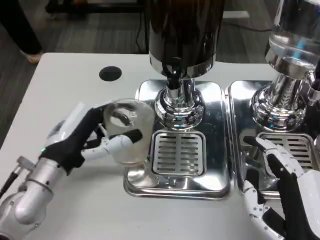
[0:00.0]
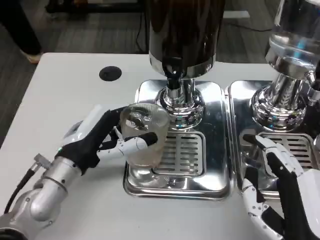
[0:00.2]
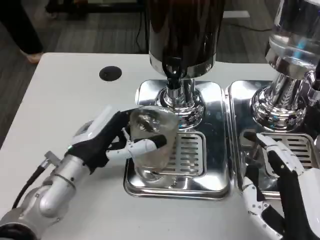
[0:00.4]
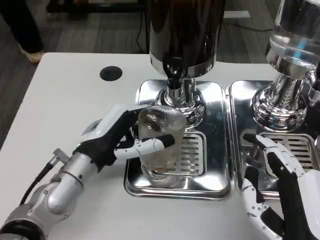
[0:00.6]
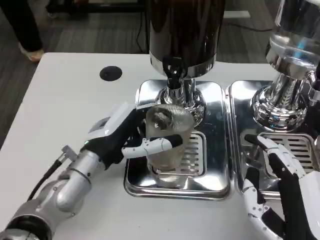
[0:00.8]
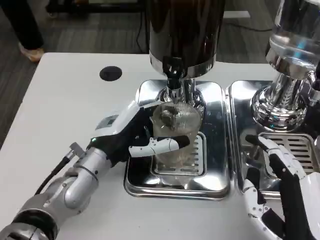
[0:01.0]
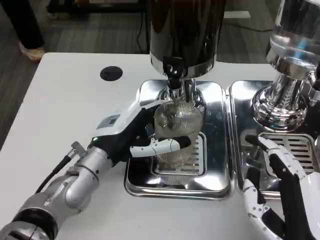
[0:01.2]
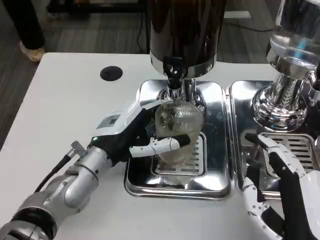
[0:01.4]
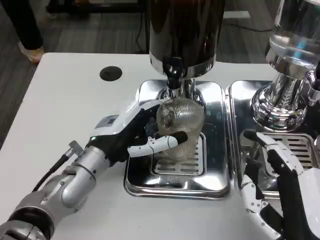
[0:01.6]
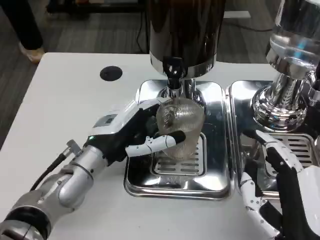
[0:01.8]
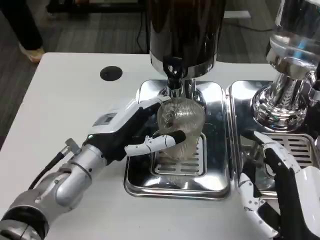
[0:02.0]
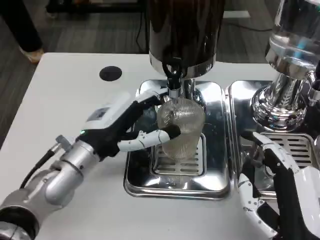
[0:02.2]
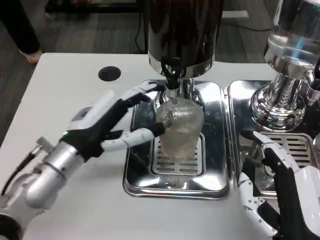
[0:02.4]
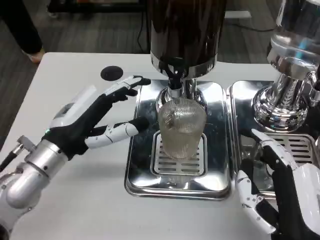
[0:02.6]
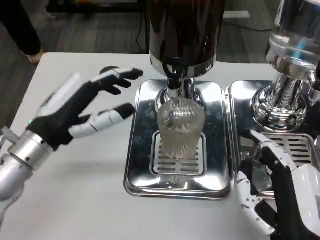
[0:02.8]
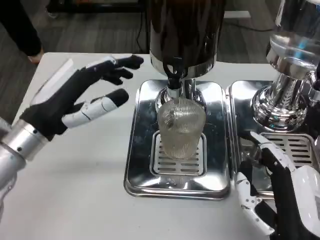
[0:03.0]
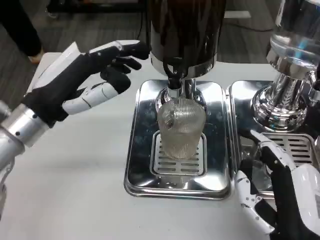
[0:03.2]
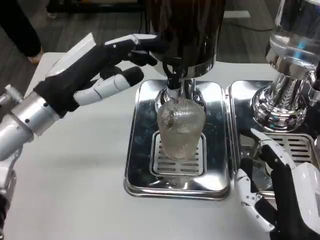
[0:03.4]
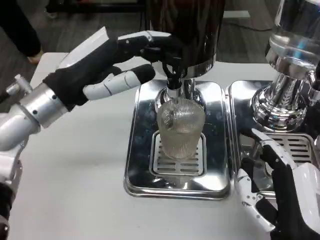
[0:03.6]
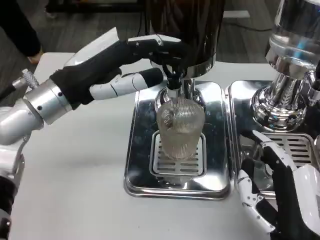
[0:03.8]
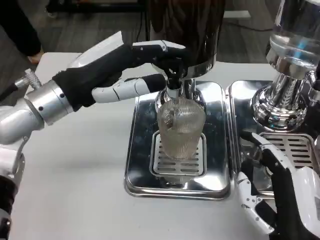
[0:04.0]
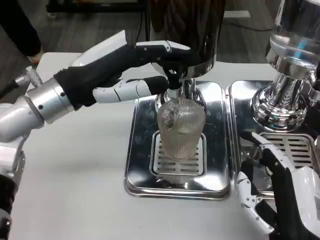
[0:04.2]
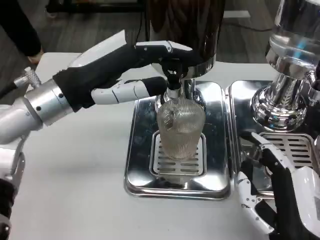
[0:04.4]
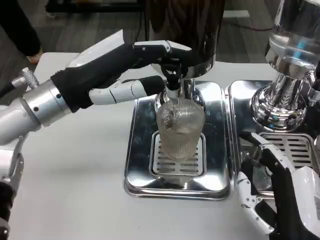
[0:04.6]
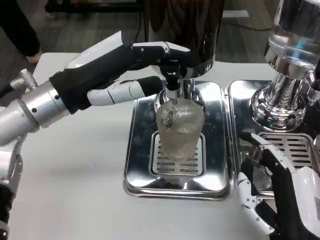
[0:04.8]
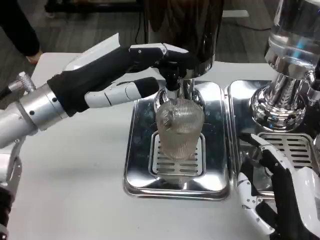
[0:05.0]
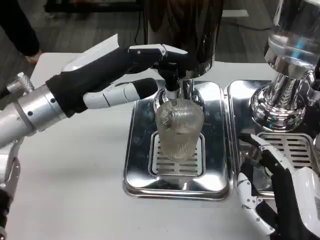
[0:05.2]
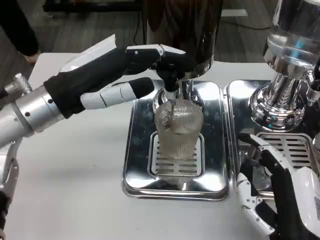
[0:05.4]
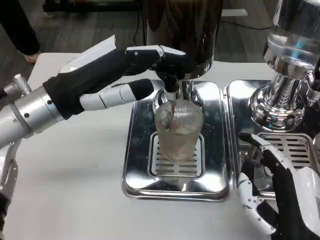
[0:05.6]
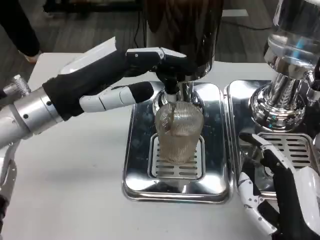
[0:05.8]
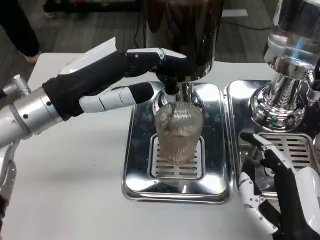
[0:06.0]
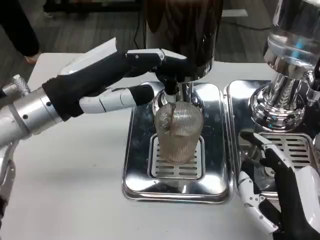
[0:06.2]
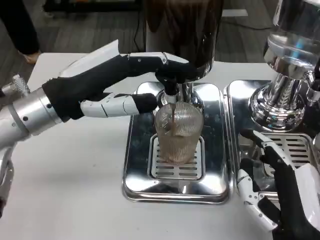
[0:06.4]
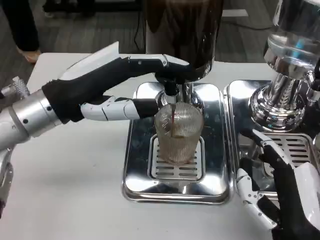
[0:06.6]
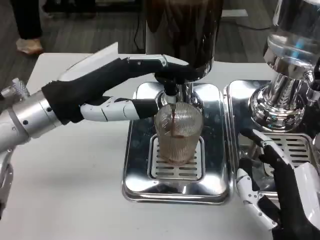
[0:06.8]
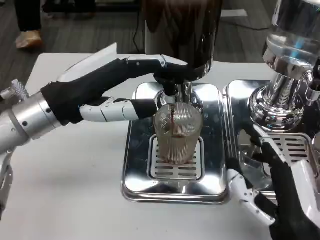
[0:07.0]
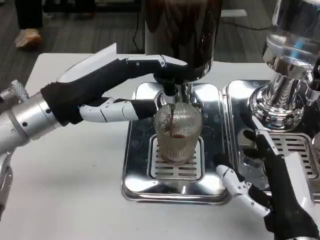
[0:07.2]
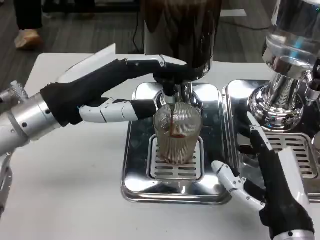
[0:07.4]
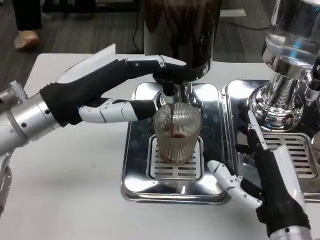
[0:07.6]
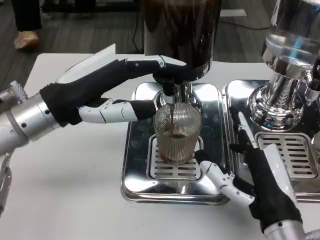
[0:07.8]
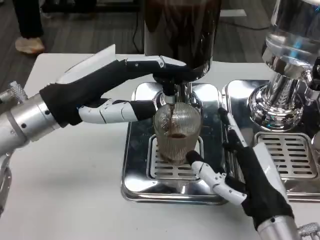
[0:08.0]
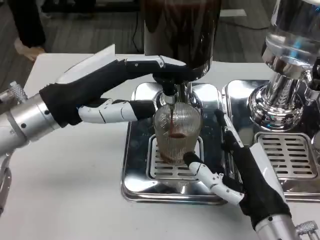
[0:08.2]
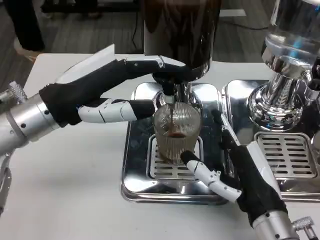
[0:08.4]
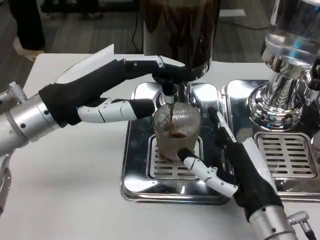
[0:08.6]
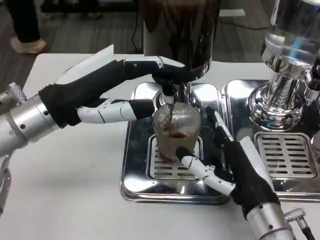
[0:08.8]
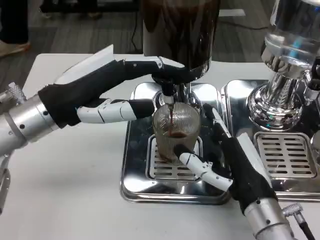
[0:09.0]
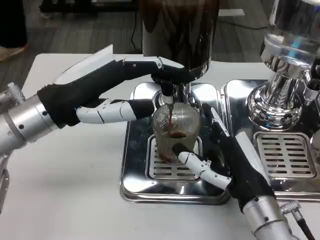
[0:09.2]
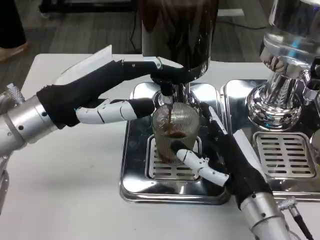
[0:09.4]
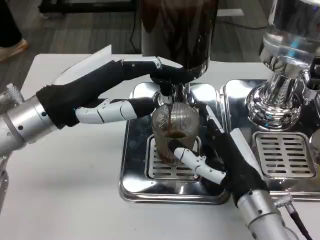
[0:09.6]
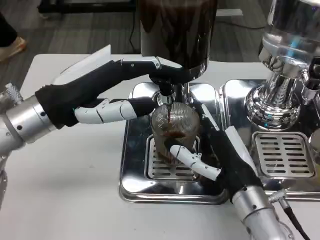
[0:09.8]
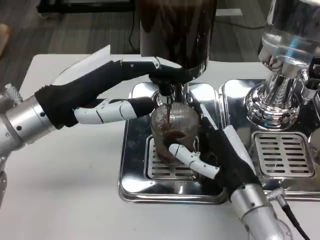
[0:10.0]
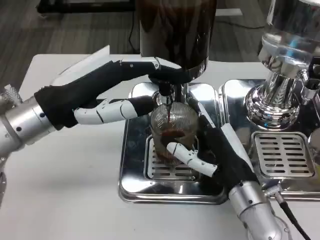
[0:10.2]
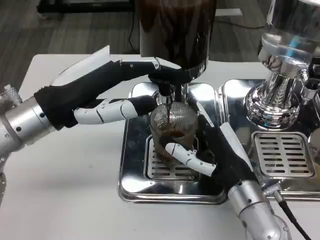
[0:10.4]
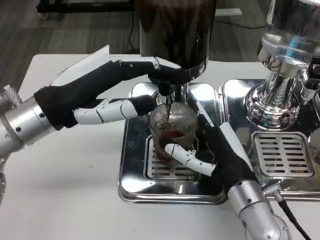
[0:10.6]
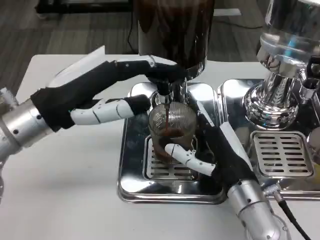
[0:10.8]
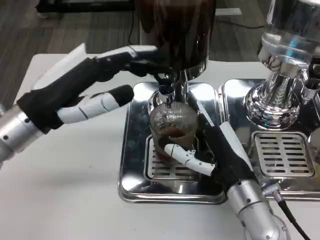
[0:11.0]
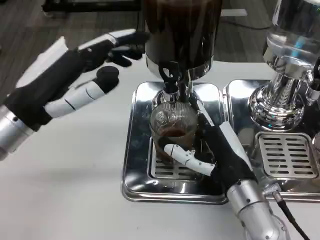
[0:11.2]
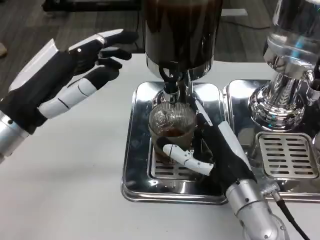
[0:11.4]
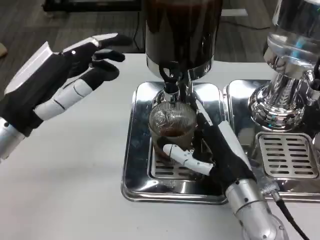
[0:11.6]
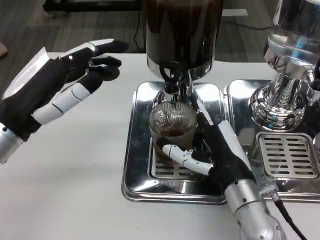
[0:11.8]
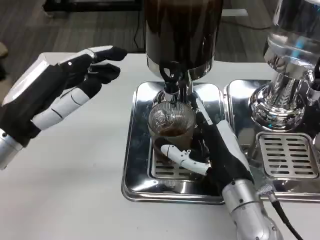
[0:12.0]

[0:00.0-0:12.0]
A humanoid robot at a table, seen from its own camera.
Task of the whole recording: Grasp the cup under the faucet to collect the drink, then remove the cup.
0:00.0 to 0:01.6: The left hand shifts some 5 cm to the right.
0:01.6 to 0:03.0: The left hand goes about 10 cm to the left and upward.
0:03.0 to 0:04.4: The left hand goes approximately 5 cm upward.
0:07.6 to 0:09.0: The hands make only small movements.
0:10.4 to 0:12.0: The left hand shifts by approximately 5 cm.

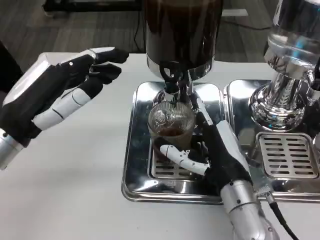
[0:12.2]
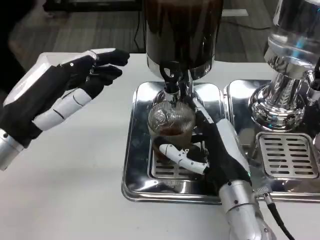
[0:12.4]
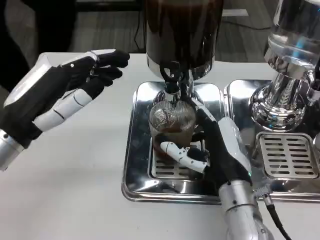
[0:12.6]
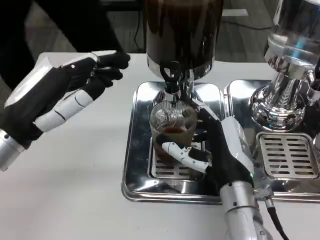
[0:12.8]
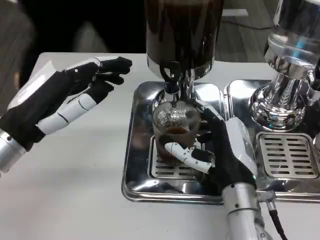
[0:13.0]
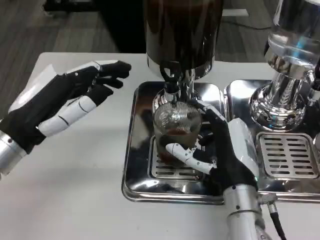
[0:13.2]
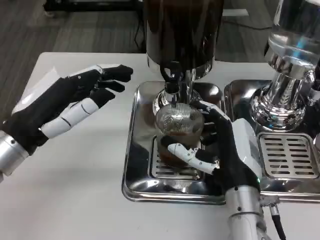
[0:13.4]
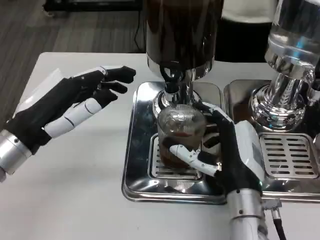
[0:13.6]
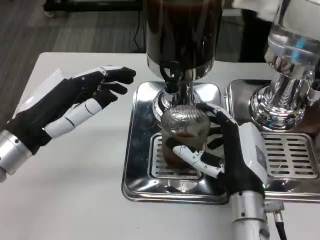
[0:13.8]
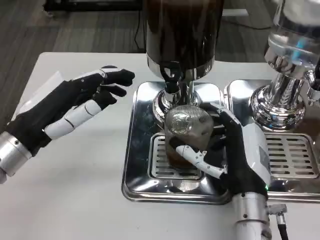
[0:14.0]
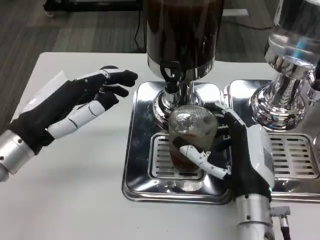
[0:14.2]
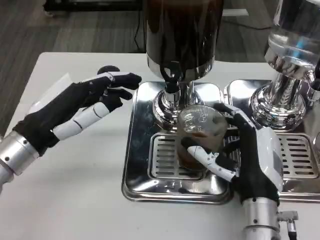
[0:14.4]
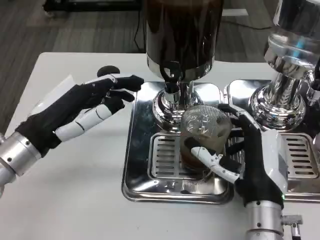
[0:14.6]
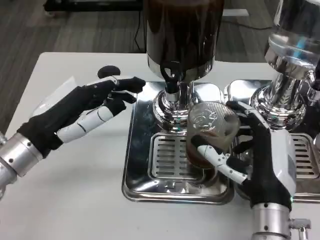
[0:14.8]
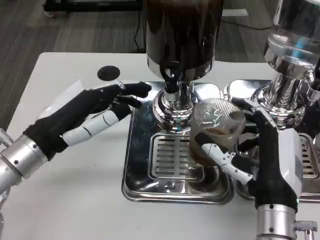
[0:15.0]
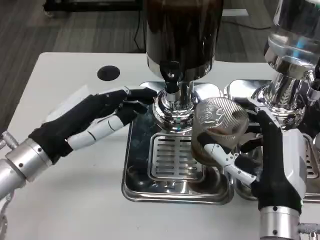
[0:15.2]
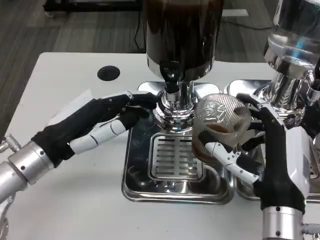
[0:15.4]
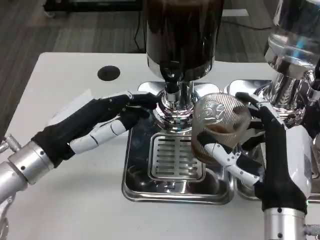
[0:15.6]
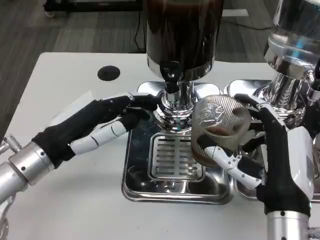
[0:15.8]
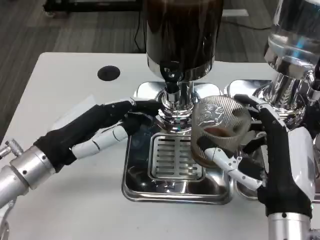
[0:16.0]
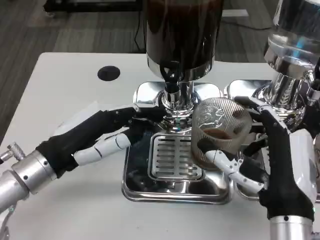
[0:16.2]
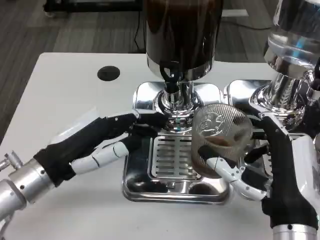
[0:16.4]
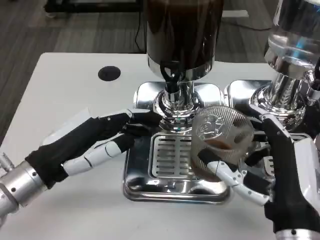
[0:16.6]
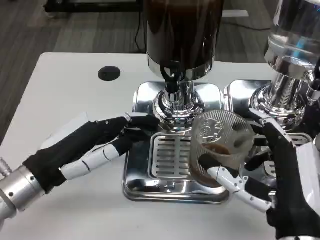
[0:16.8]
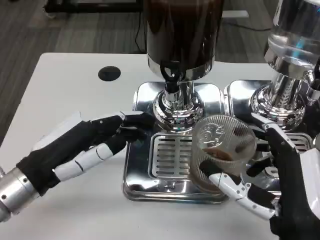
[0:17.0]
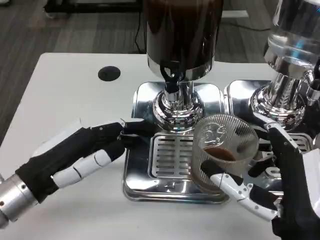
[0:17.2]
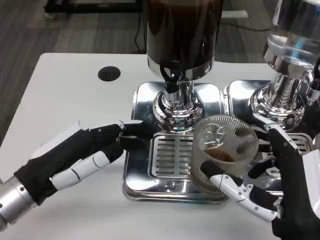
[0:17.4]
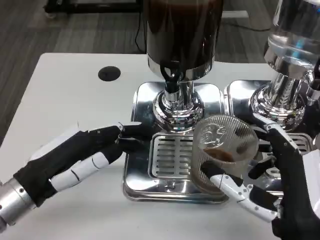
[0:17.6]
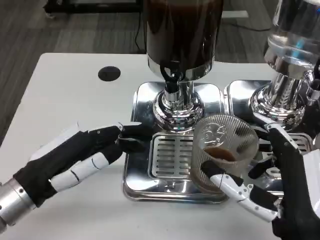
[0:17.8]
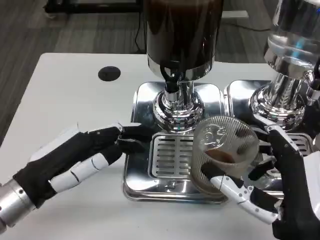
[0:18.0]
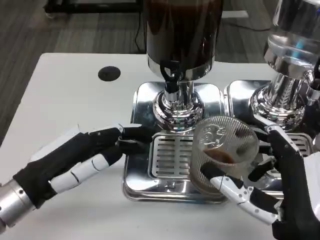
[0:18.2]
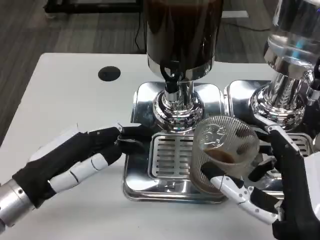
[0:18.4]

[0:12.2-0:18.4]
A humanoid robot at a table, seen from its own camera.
Task of the whole recording: Grasp the cup under the faucet to collect the drink, then remove the cup.
0:15.4 to 0:16.8: The right hand ends up roughly 5 cm from where it was.
0:16.8 to 0:18.4: The hands make only small movements.

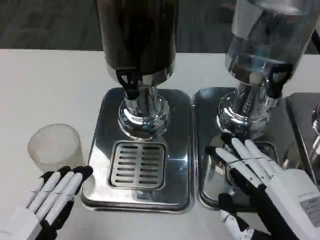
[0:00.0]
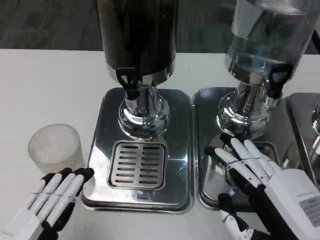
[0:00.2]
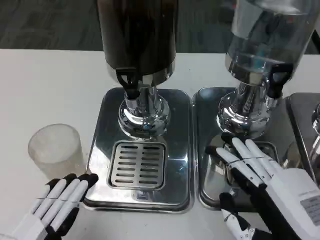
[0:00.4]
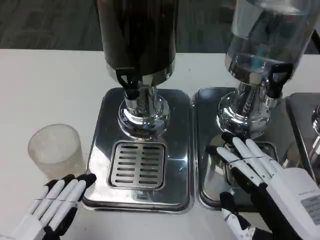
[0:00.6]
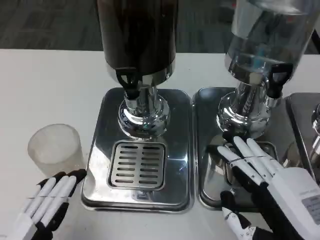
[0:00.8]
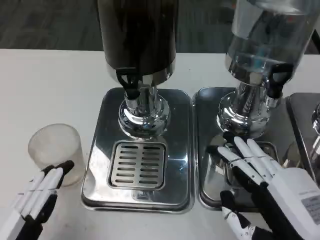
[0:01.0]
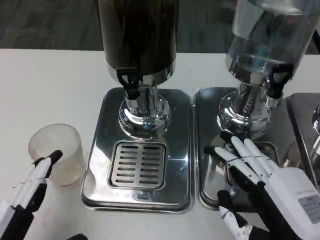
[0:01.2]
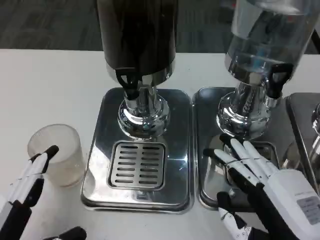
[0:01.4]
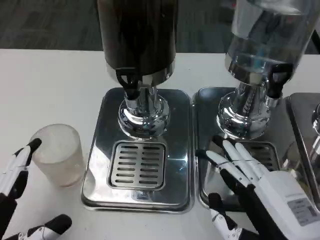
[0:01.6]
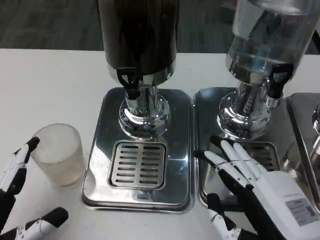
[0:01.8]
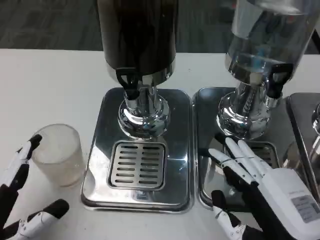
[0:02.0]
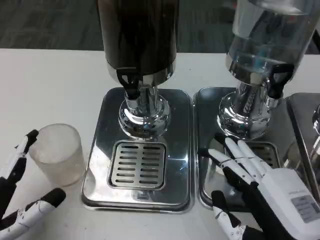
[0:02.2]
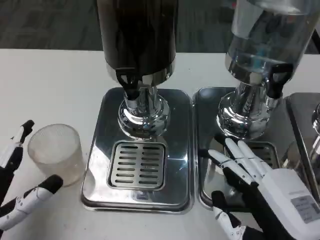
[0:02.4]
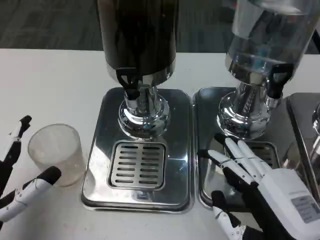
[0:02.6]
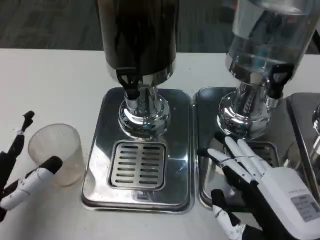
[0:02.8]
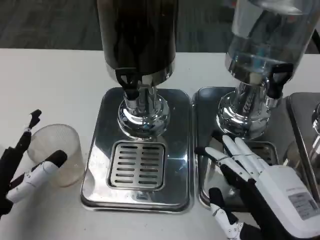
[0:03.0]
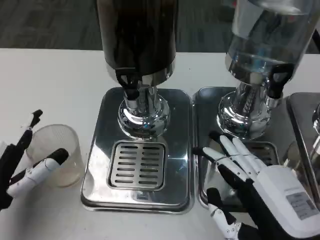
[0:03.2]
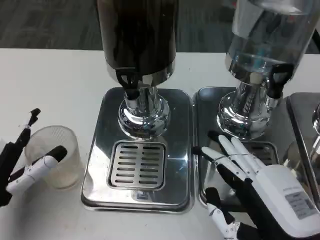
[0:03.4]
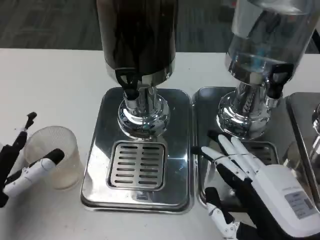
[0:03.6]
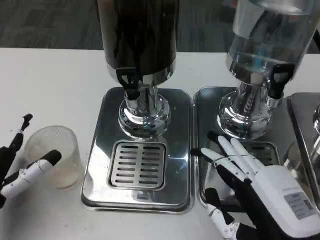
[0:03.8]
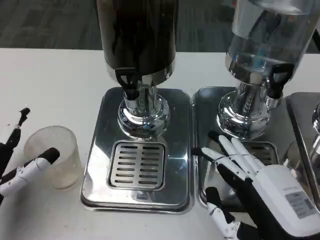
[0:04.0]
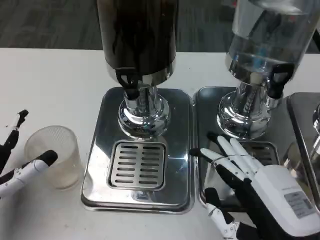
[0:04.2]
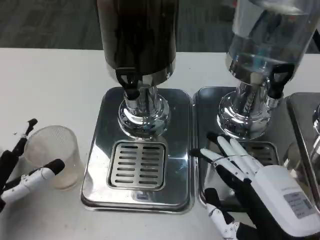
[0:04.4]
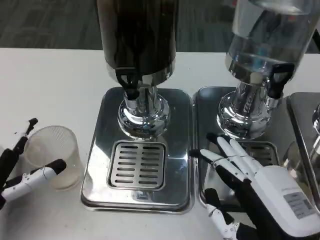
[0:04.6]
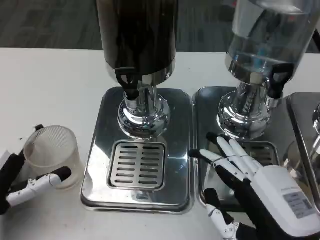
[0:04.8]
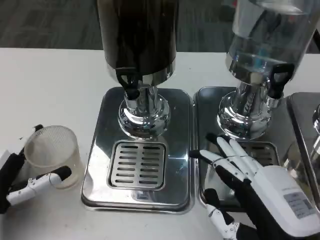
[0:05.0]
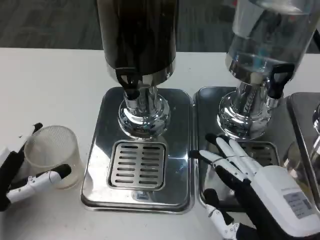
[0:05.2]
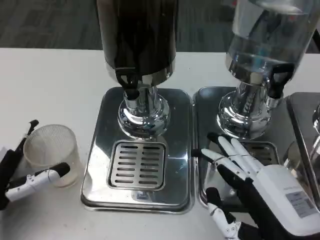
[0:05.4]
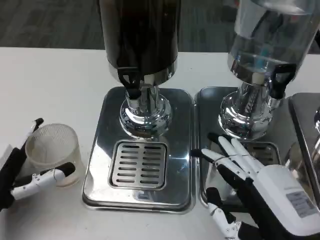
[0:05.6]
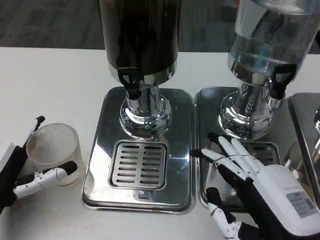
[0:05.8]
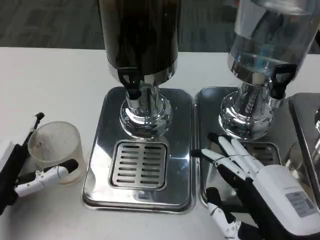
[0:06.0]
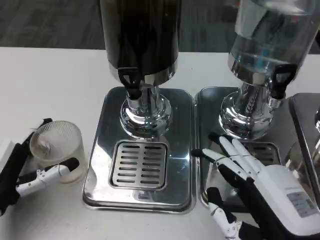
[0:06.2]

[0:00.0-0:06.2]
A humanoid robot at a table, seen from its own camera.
Task of the whole recording: Grasp the cup under the faucet to collect the drink, then remove the cup.
0:01.6 to 0:03.2: The left hand moves forward, some 10 cm.
0:03.2 to 0:06.2: The hands make only small movements.
